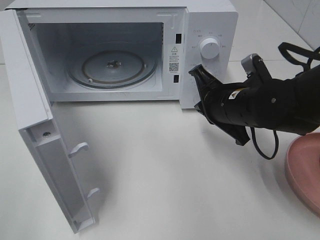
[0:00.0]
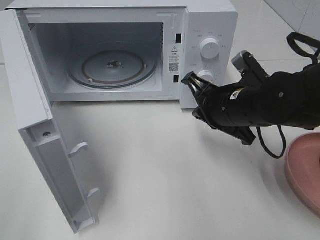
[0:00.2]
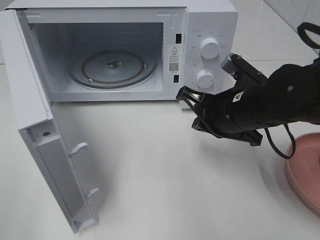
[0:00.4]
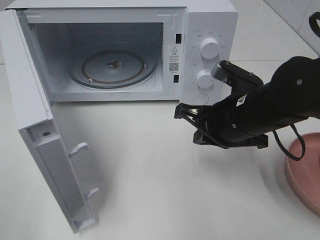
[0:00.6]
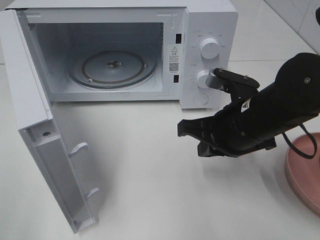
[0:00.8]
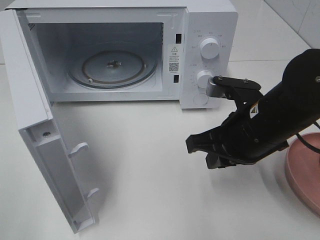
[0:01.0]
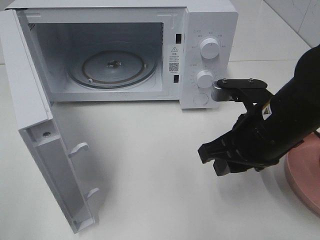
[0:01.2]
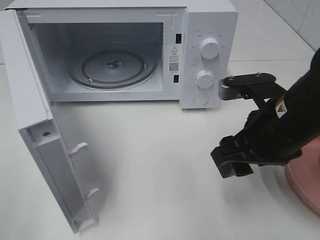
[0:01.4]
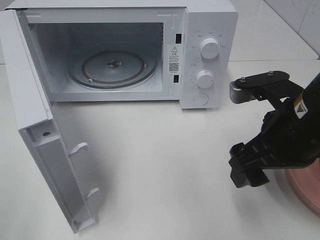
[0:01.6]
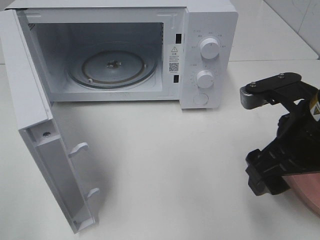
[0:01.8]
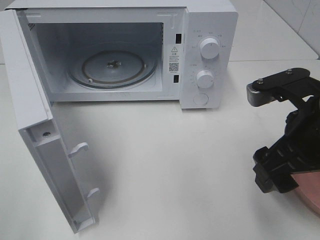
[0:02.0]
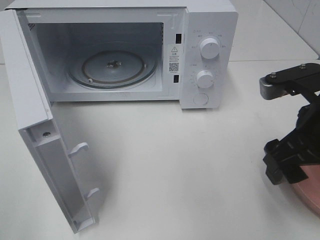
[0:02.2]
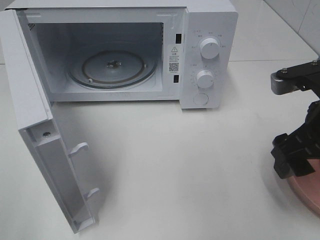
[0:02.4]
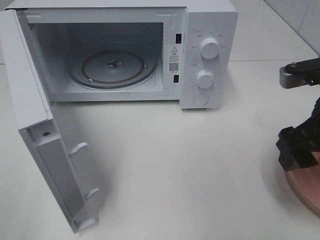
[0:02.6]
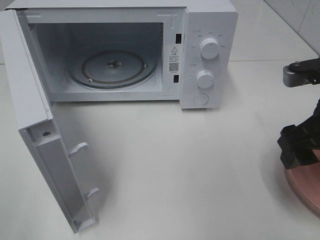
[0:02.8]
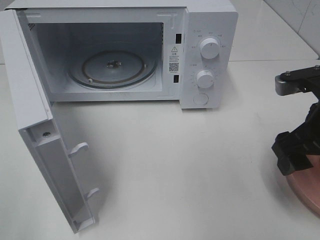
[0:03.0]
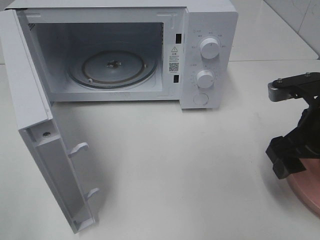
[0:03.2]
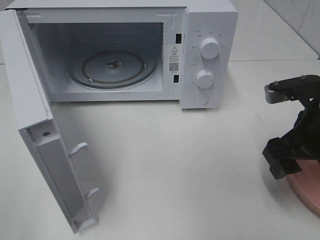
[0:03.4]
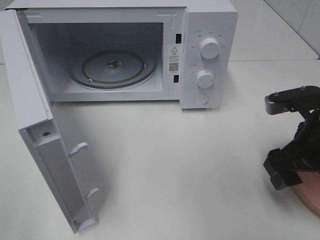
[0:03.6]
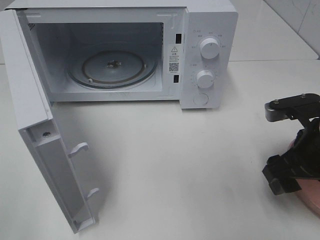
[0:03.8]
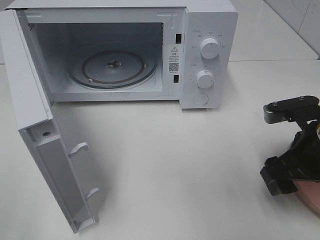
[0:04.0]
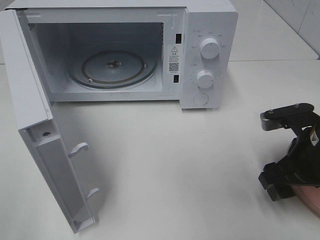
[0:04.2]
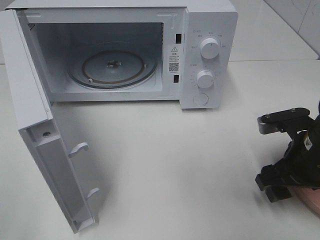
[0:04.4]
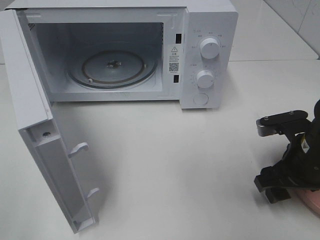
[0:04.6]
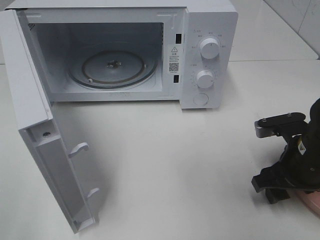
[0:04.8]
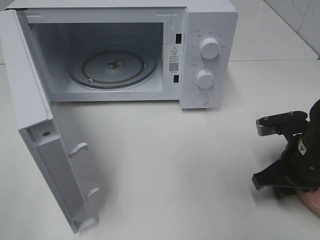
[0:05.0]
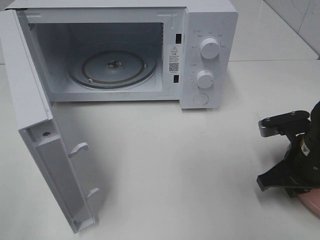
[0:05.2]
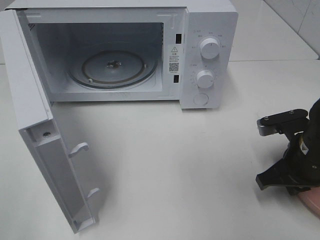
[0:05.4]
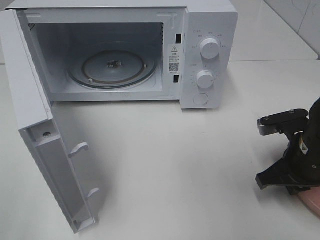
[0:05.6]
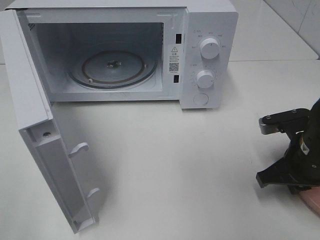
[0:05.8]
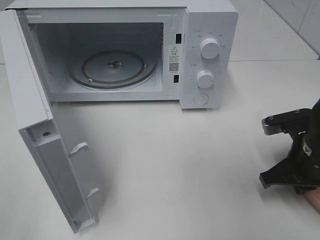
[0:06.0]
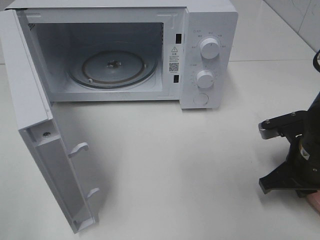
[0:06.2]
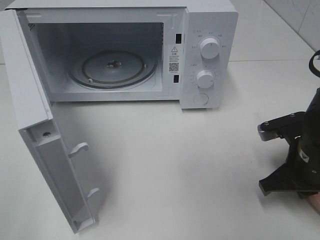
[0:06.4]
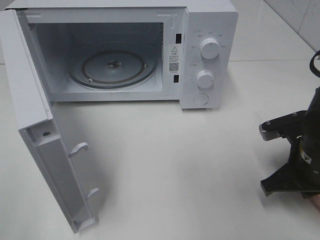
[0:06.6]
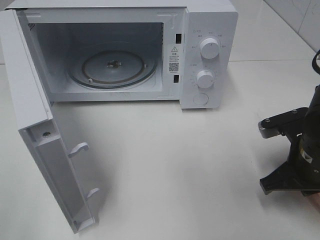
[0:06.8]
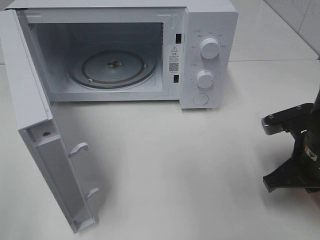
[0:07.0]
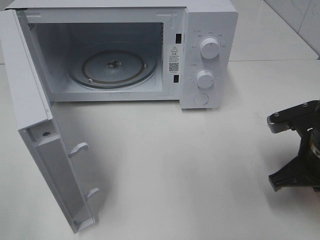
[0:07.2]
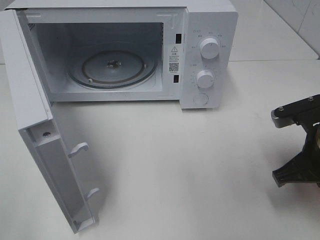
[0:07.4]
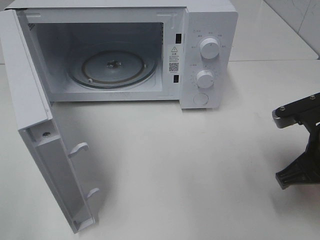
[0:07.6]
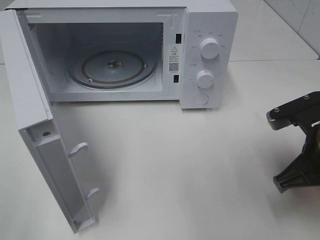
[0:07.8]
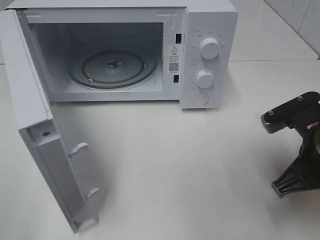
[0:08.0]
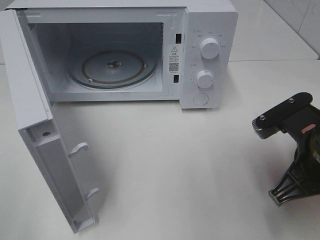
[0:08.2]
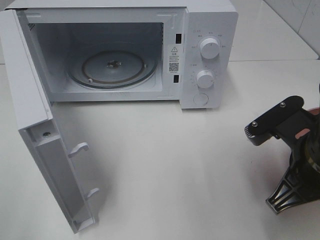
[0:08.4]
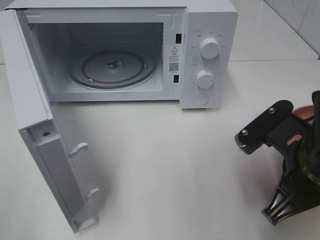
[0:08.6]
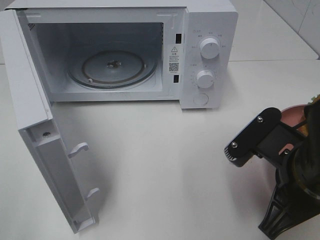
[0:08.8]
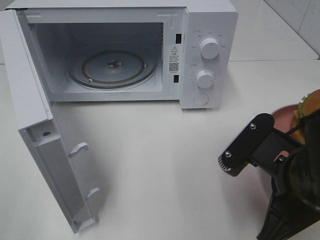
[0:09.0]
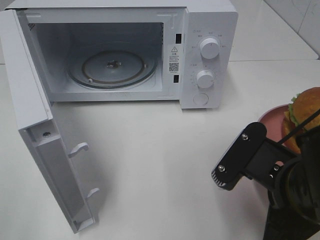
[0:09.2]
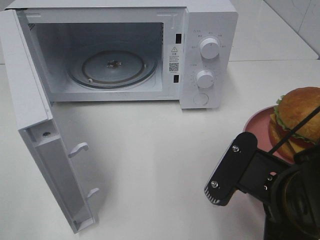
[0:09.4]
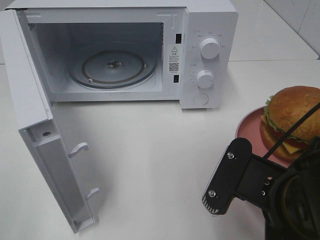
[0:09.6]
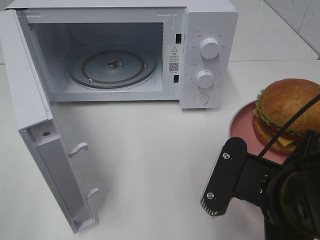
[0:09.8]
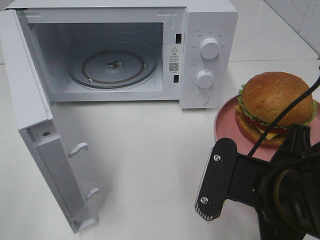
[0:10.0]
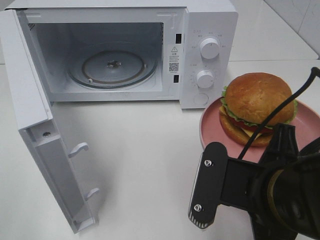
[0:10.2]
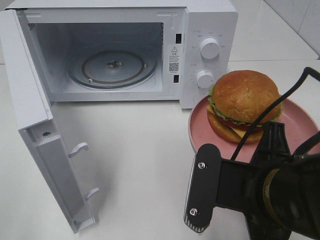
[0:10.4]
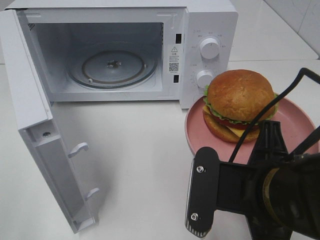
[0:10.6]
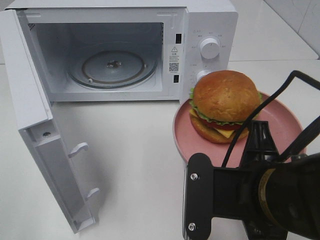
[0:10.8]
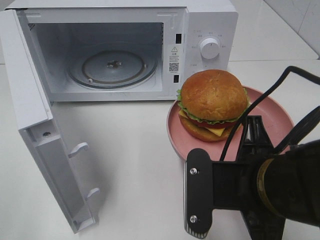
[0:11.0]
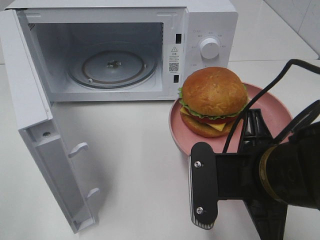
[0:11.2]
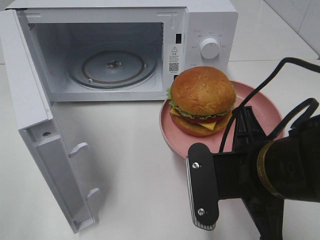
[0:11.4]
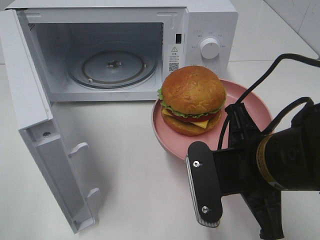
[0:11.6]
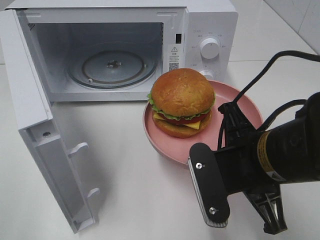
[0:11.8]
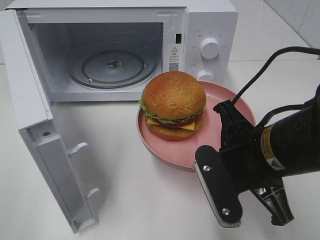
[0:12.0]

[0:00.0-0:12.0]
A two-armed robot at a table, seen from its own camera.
Task of the whole recording: Heat the burger.
Step, 0:00.0 to 0:06.6: Right hand: grab the plate with the hamburger.
0:00.0 to 0:01.6: The right gripper shifts about 10 cm backward and upward, and opens up.
0:01.6 to 0:03.0: The right gripper travels to the right by some 5 cm.
0:03.0 to 0:04.4: The right gripper heads downward, covering some 10 cm.
0:04.4 to 0:06.0: The right gripper closes.
0:06.0 to 0:07.6: The right gripper is displaced upward by some 5 cm.
0:07.6 to 0:09.0: The right gripper moves to the left and backward, approximately 10 cm.
0:10.4 to 0:12.0: The right gripper travels forward by roughly 5 cm.

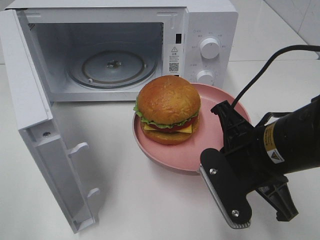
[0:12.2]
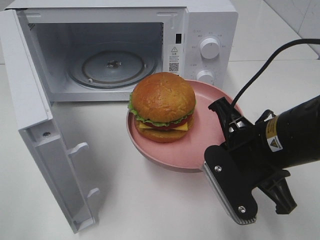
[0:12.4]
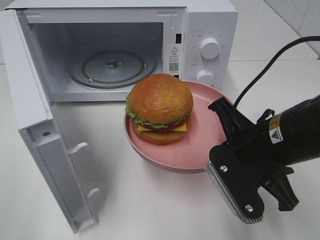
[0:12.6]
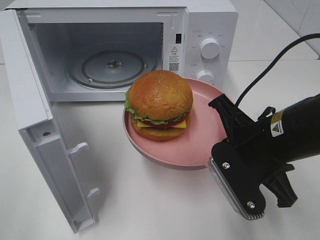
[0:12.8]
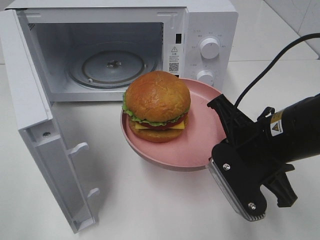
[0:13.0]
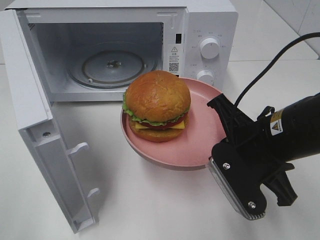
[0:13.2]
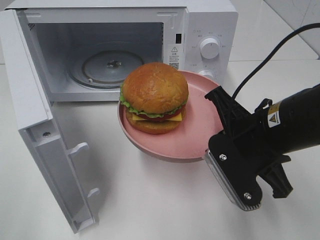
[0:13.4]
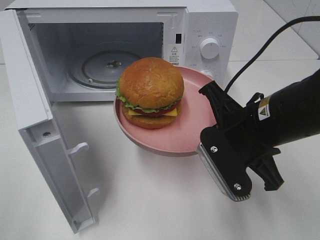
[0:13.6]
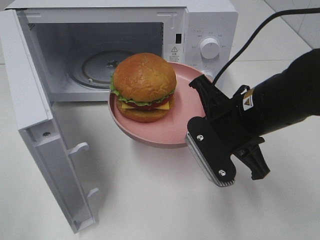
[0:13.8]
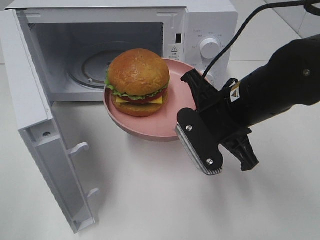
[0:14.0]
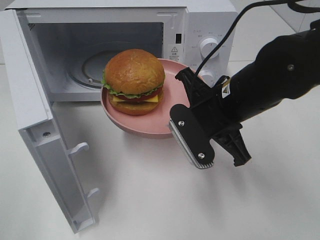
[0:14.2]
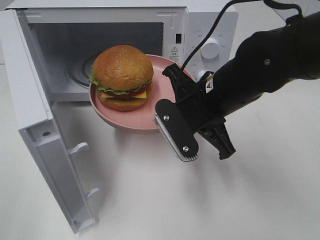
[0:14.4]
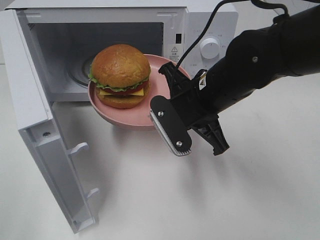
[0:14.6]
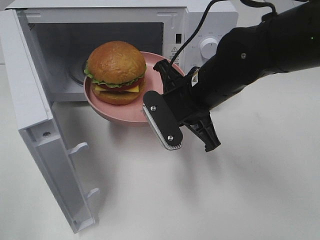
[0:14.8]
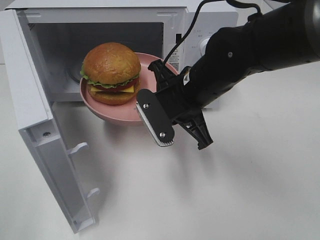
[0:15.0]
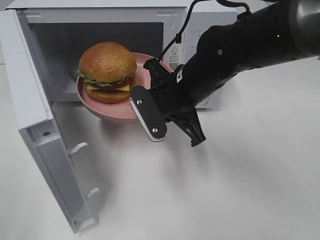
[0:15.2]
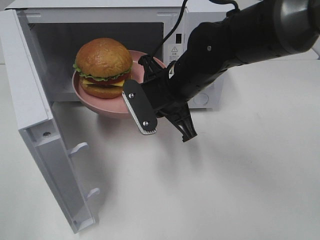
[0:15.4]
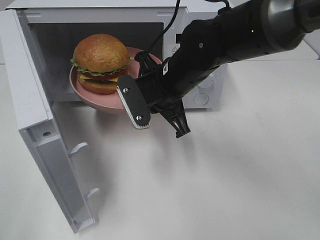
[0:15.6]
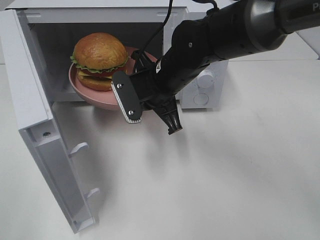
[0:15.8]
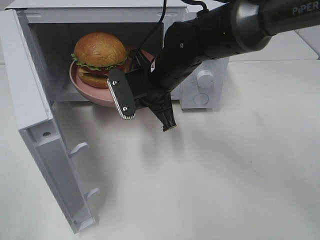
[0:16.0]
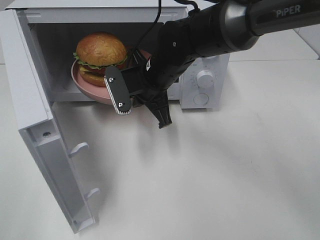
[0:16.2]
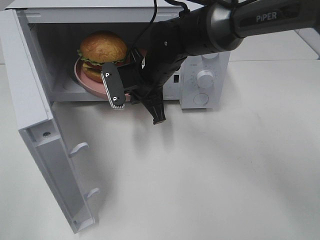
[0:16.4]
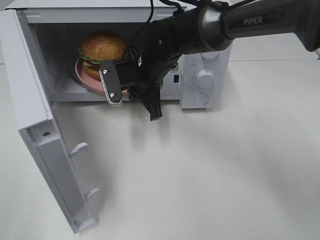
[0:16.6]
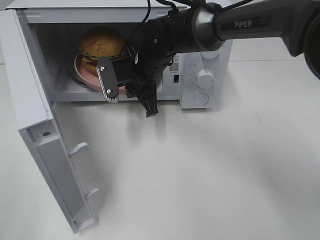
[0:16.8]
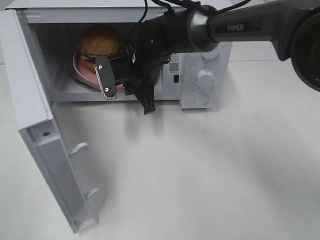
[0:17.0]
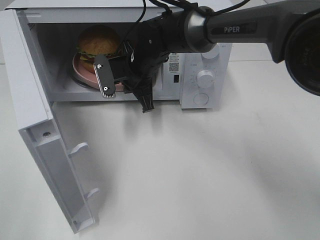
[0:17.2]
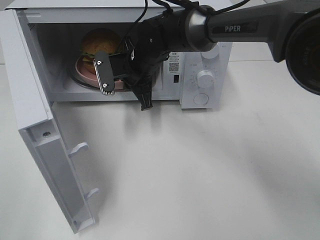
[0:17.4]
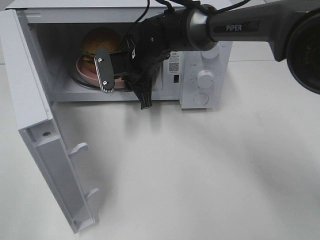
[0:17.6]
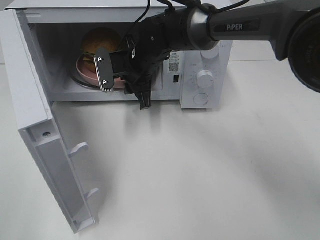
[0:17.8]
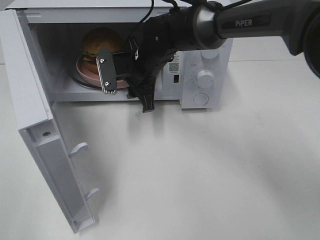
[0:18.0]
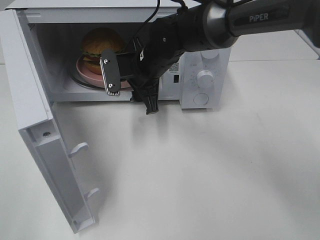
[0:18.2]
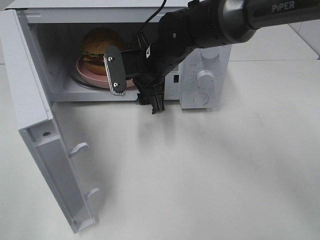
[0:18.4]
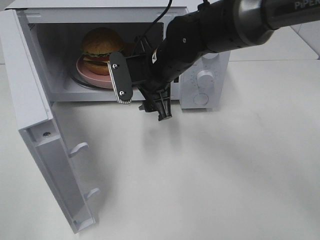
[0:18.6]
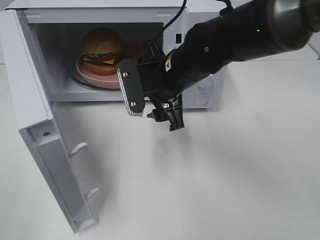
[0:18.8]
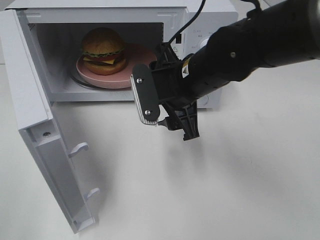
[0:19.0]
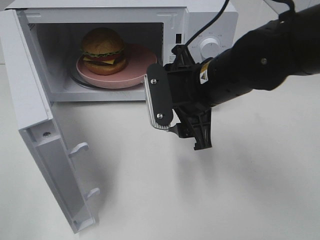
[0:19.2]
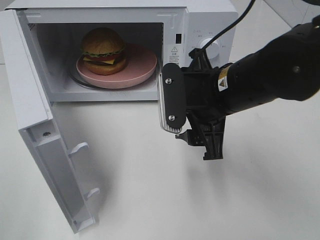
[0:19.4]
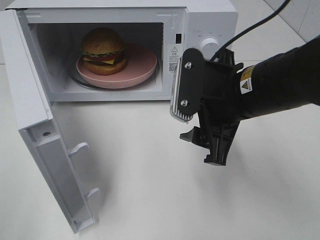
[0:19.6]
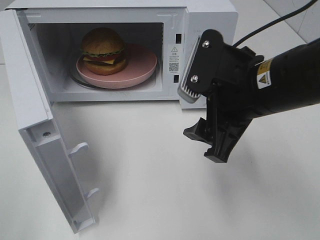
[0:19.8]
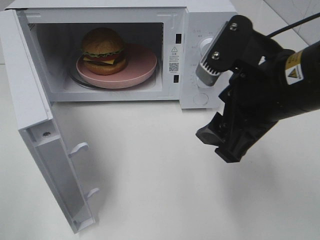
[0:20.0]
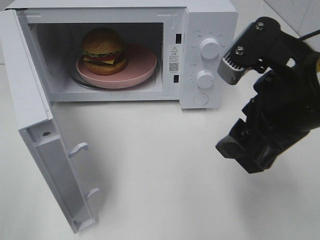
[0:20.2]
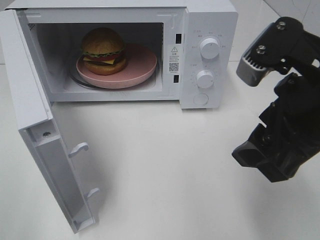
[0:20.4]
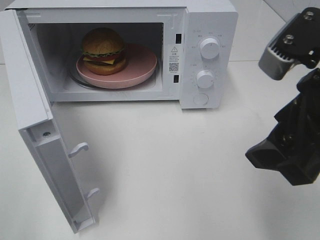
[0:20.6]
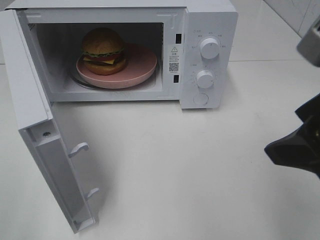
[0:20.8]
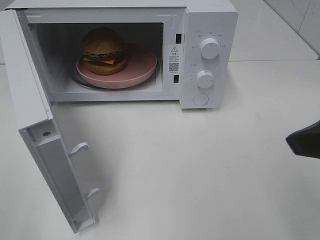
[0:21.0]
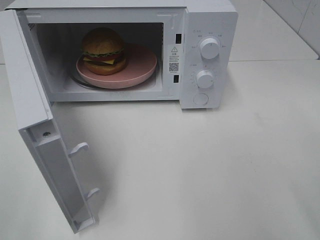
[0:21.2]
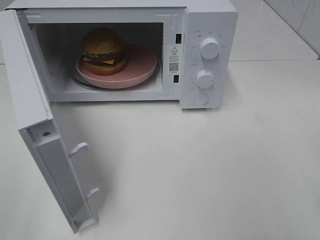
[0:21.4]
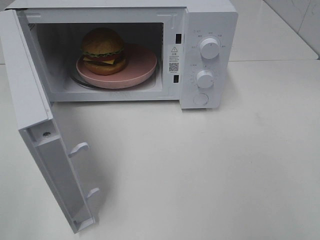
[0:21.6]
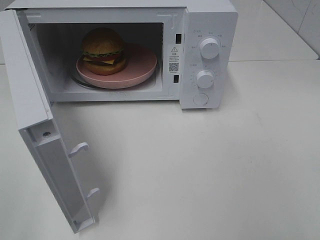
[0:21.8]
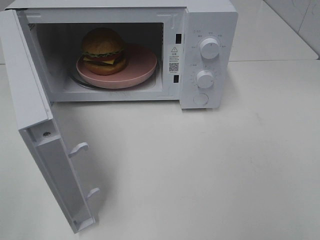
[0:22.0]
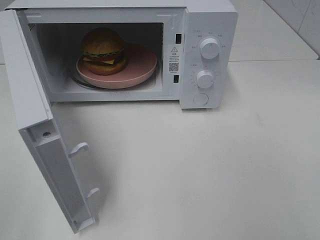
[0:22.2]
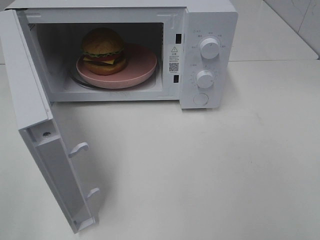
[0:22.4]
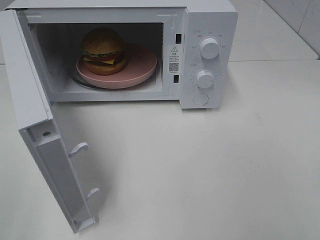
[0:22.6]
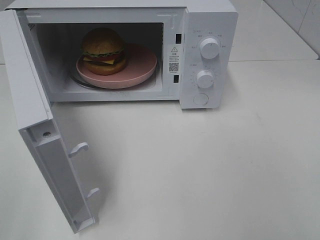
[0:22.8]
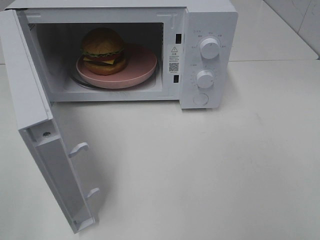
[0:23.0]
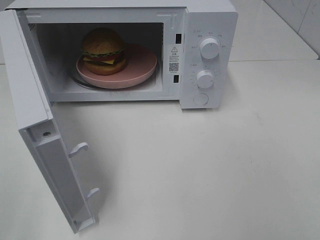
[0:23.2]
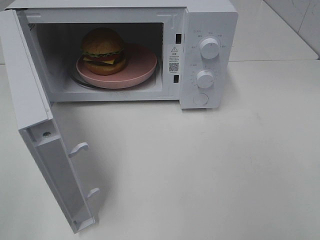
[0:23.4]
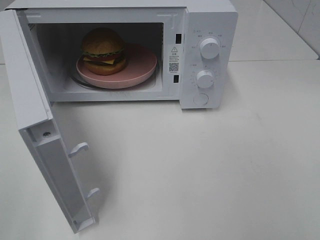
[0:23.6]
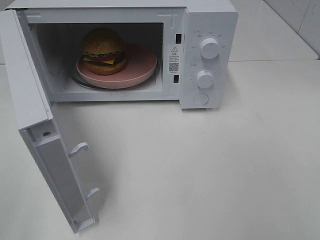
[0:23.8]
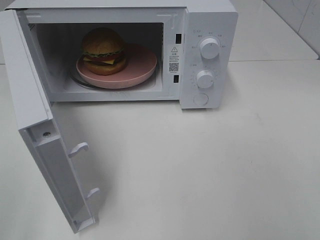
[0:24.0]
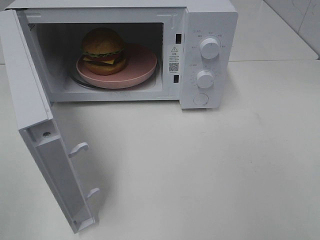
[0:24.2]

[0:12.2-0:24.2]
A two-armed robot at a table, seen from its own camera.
Task of the whole recording: Heat the burger.
Step, 0:12.2 to 0:17.8: Right hand: place the plate in the microwave.
0:12.2 to 0:13.8: The right gripper moves forward, about 5 cm.
0:13.8 to 0:15.2: The right gripper moves forward and to the left, roughly 10 cm.
0:15.2 to 0:16.6: The right gripper heads forward and to the left, covering approximately 10 cm.
0:16.6 to 0:18.2: The right gripper opens its fingers.
0:18.2 to 0:19.8: The right gripper is displaced backward, to the right and upward by approximately 25 cm.
0:19.8 to 0:21.2: The right gripper goes roughly 20 cm to the right, backward and upward.
